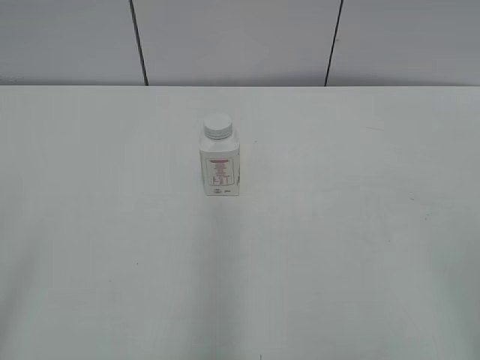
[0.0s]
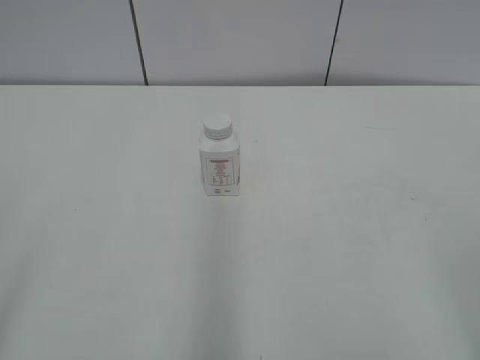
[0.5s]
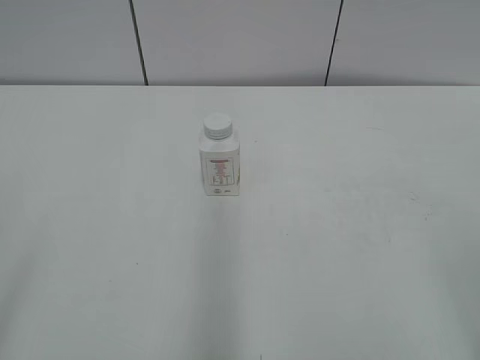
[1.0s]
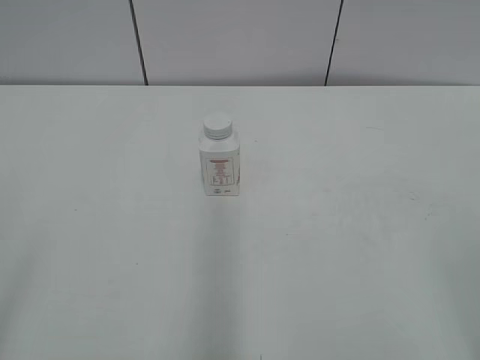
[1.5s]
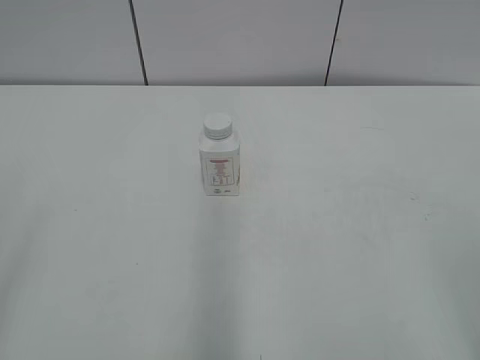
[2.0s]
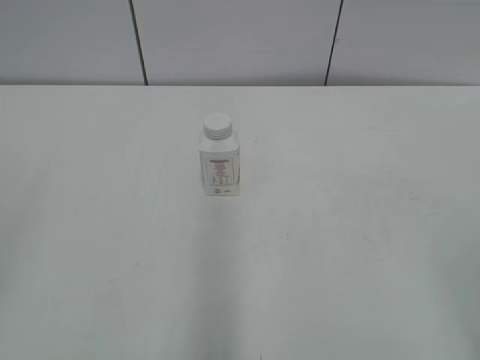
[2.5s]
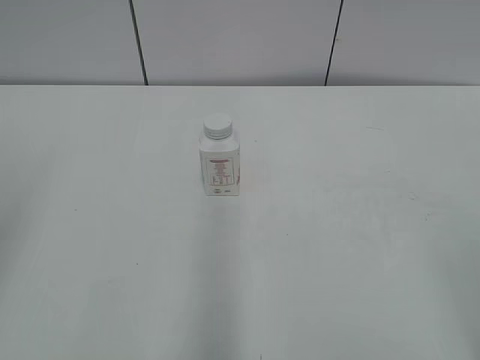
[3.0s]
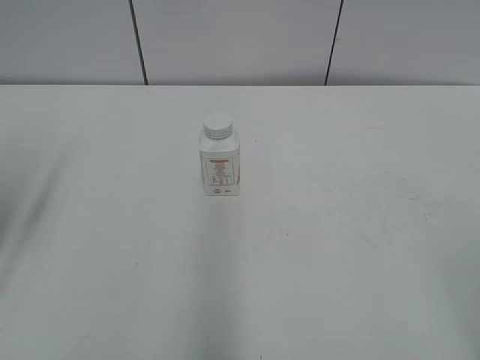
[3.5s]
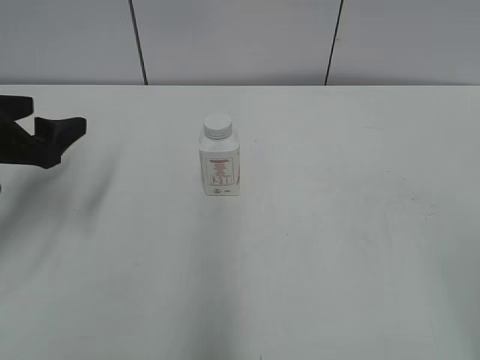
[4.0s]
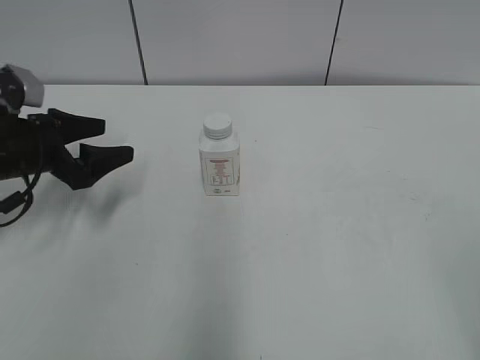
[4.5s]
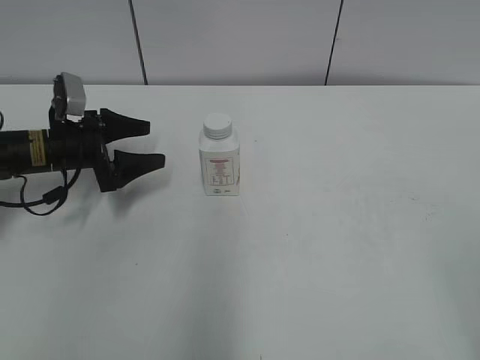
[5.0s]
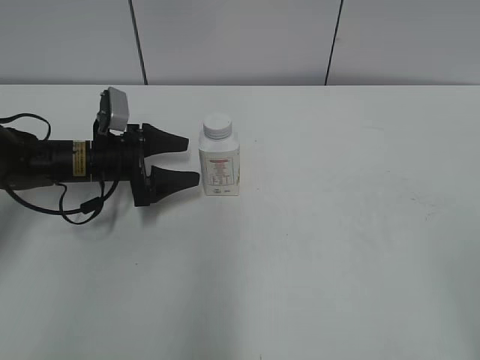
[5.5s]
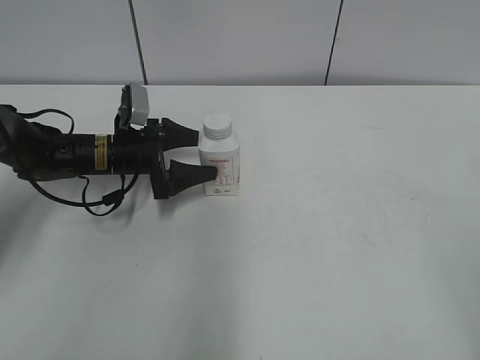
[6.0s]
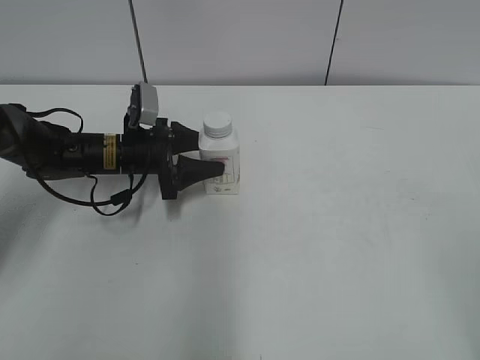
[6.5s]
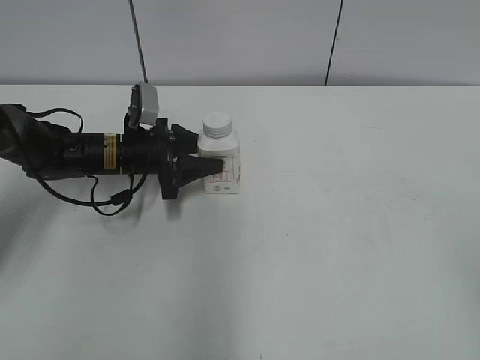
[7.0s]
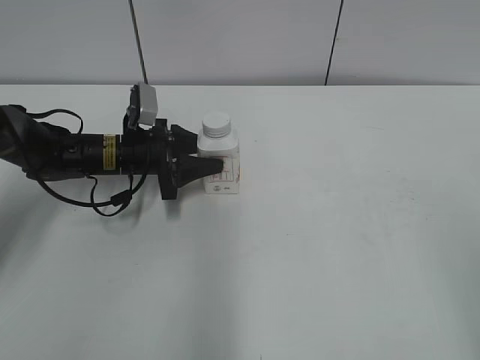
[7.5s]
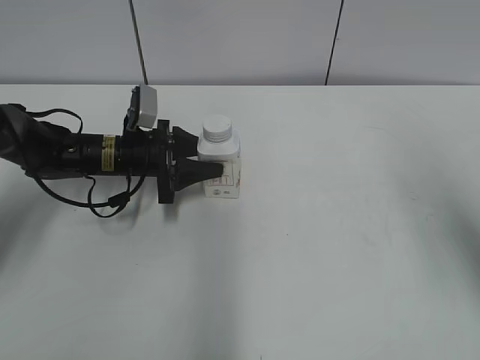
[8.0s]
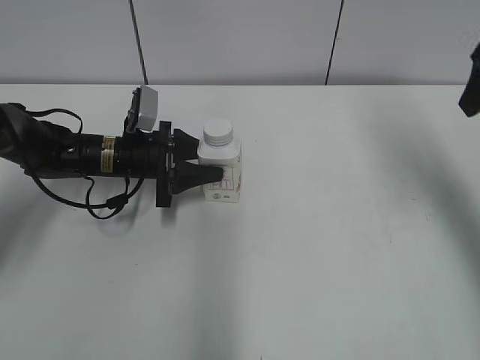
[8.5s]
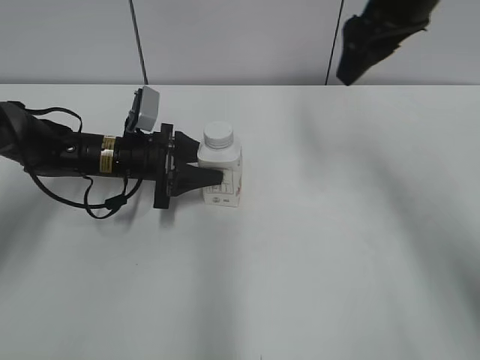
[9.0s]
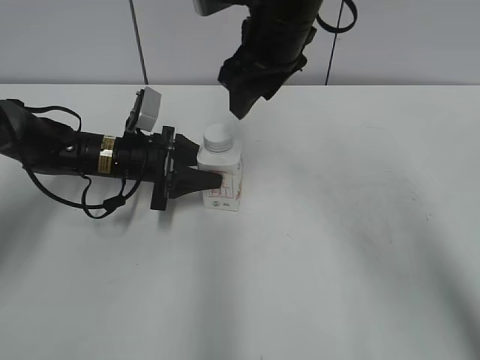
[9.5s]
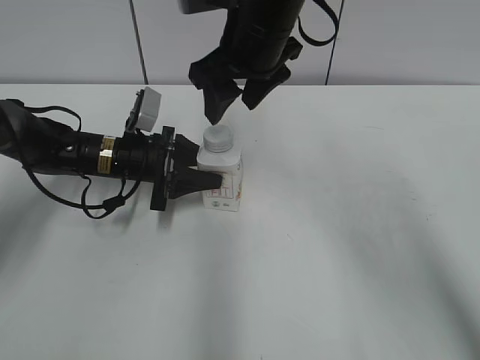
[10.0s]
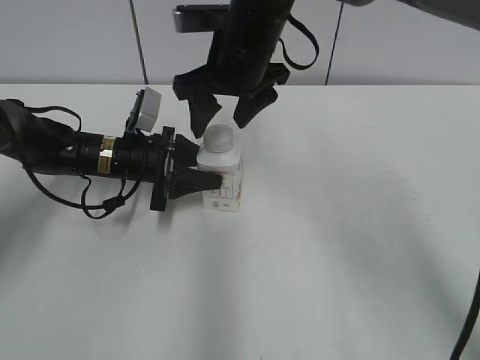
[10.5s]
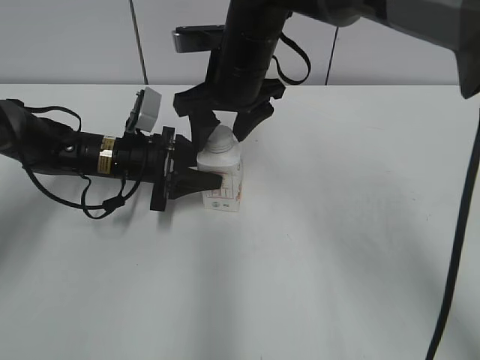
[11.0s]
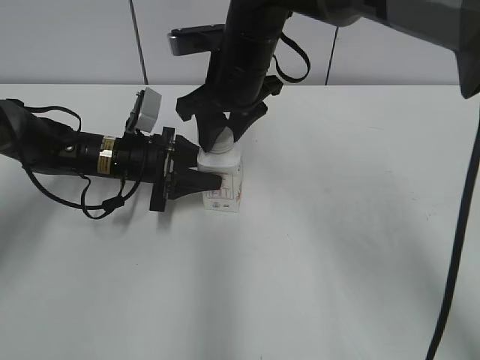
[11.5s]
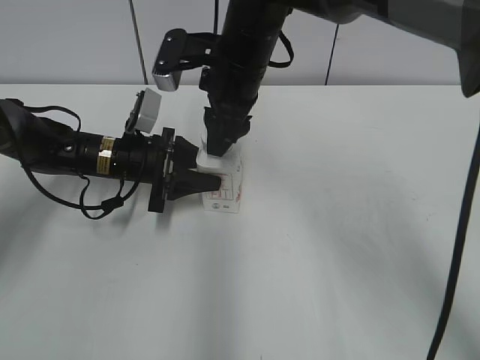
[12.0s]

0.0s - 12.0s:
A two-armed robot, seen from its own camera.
Step, 0.0s - 9.0s: Grasp the bottle and move it to the center of the table with the left gripper.
2.0s - 4.0s: The left gripper shifts about 30 cm forward and downward.
4.0s - 6.0s: The left gripper shifts roughly 20 cm forward, downward and to the right.
6.0s - 8.0s: The left gripper closes its fingers; the right gripper travels forward by approximately 20 cm.
8.0s - 10.0s: The right gripper is displaced to the left and forward by some 35 cm.
10.0s - 12.0s: The right gripper moves roughly 5 cm, and closes.

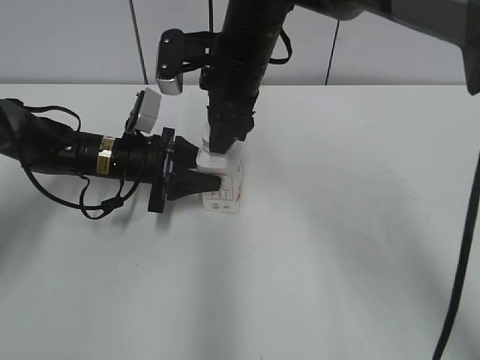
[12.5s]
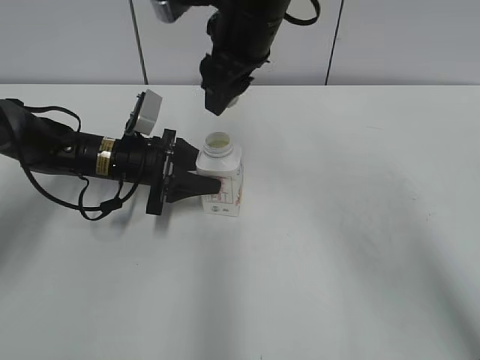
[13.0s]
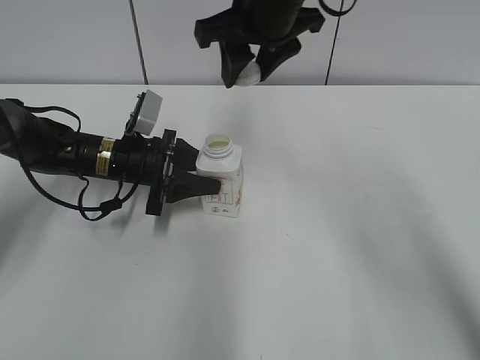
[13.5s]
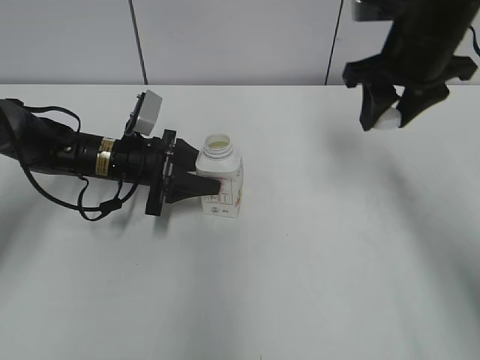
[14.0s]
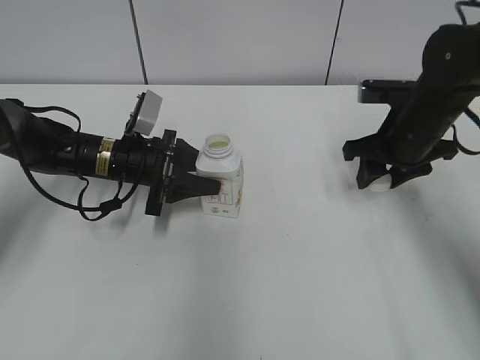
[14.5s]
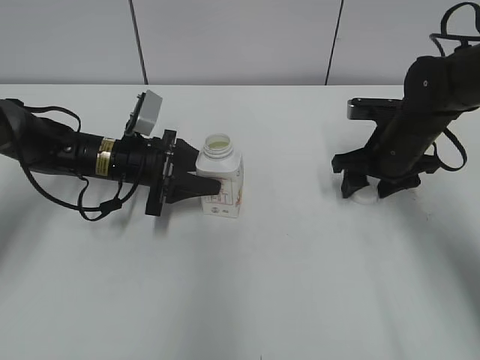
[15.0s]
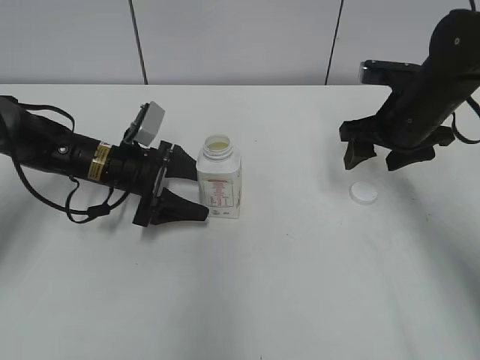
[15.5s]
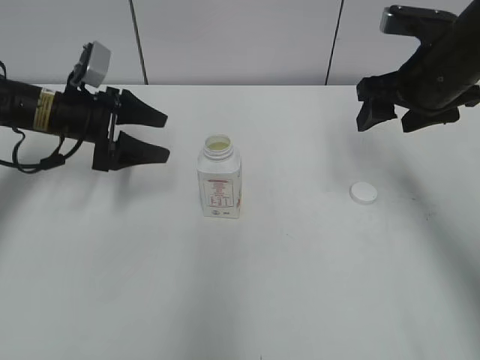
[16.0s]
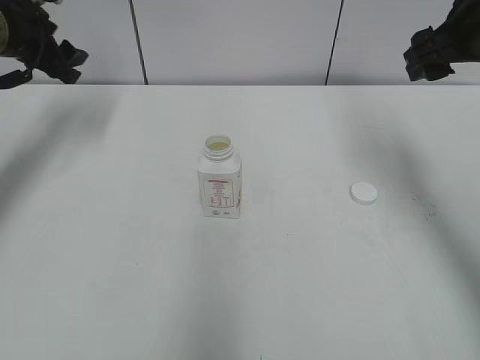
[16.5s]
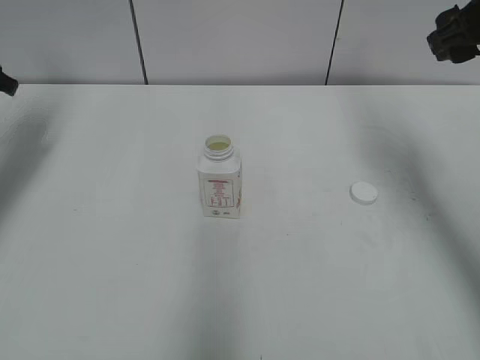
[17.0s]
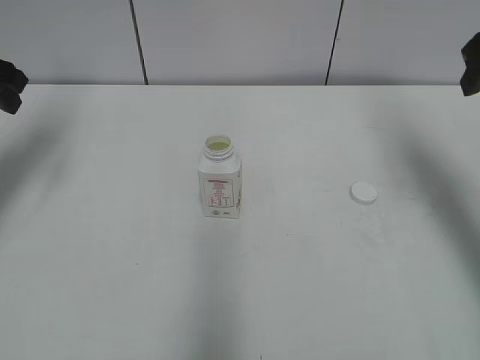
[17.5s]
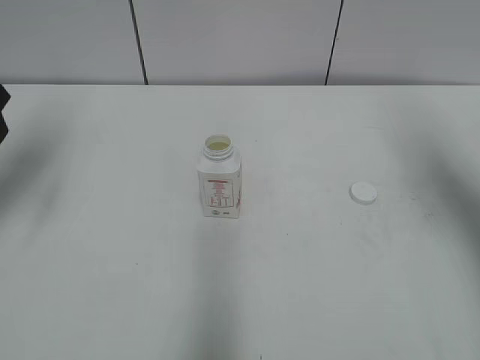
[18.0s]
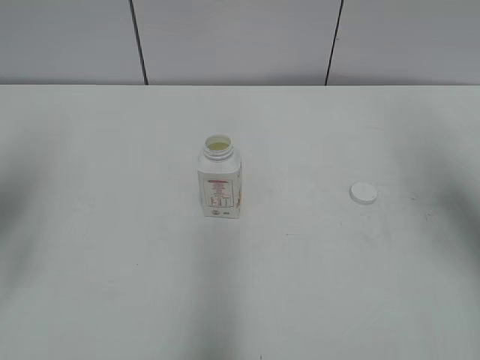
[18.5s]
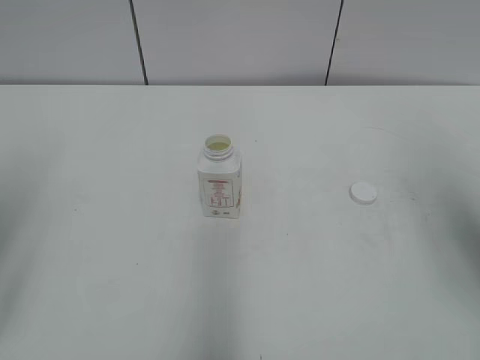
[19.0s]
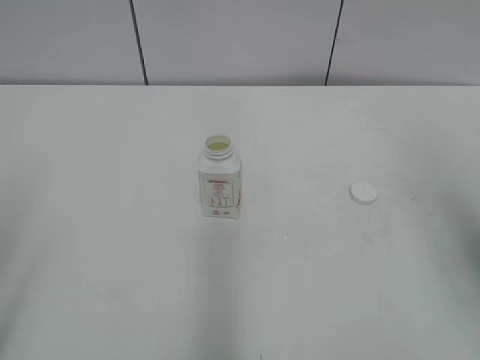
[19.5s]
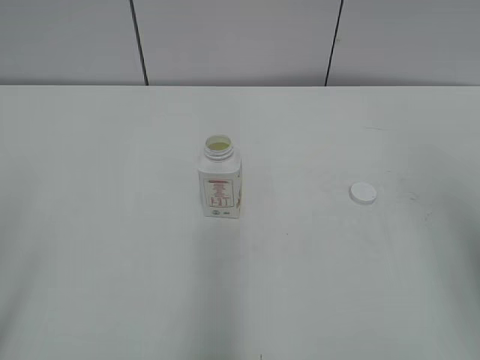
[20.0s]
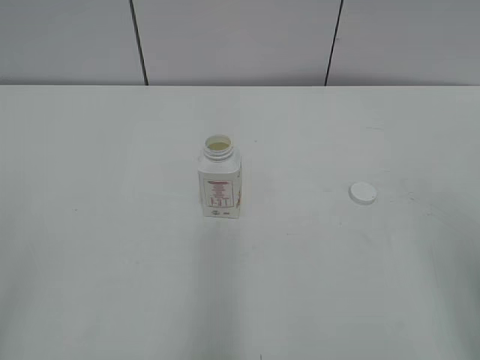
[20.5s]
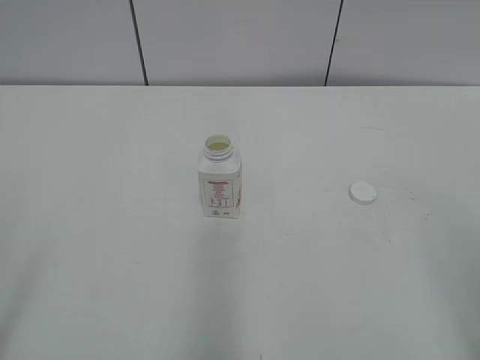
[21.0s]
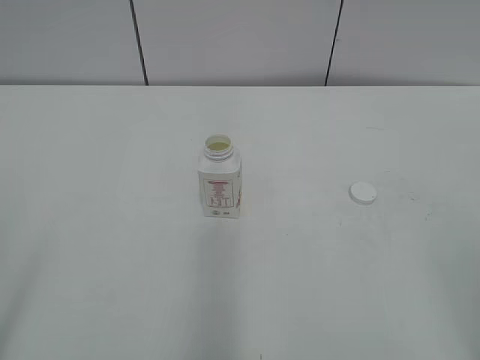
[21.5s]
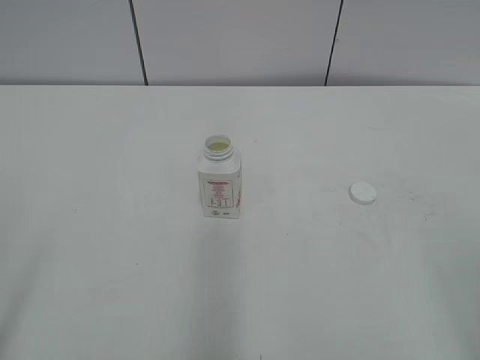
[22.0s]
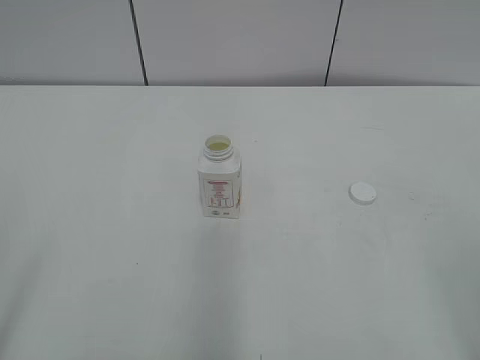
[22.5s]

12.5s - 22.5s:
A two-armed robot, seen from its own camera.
Step, 13.0s - 15.0s: Place the bottle cap on the table with the right gripper.
12.5s - 14.5s: The right gripper is displaced to the right by some 20 cm.
14.5s - 16.5s: The right gripper travels upward by roughly 15 cm, and opens its fingers; the left gripper moves upward and to the left, approximately 20 cm, and opens.
16.5s - 18.5s: The left gripper shifts about 20 cm backward. The right gripper is displaced backward and to the right by some 10 cm.
18.5s - 20.5s: Both grippers travel together backward, approximately 20 cm. The left gripper closes up.

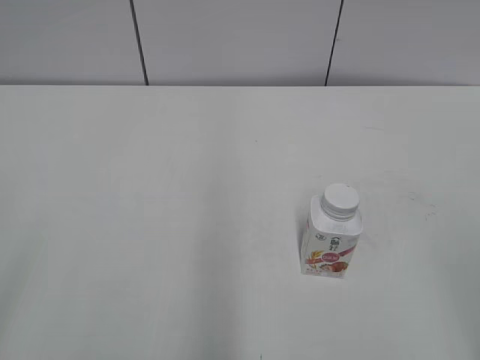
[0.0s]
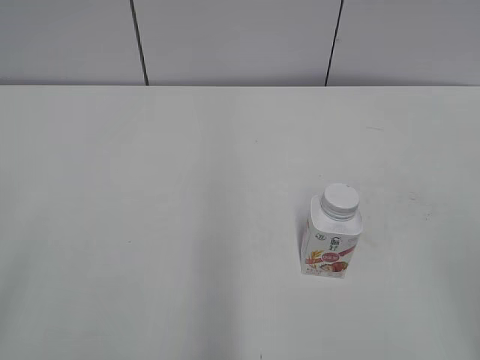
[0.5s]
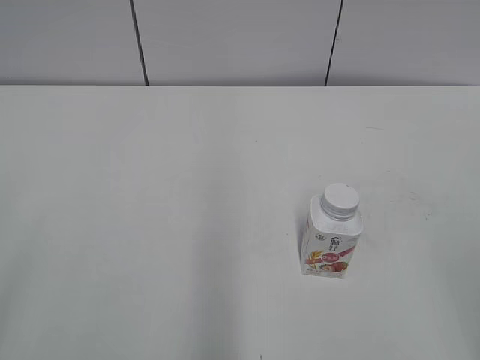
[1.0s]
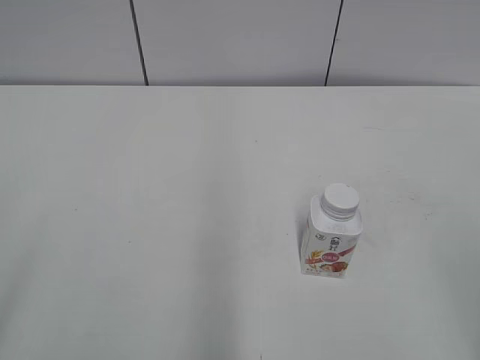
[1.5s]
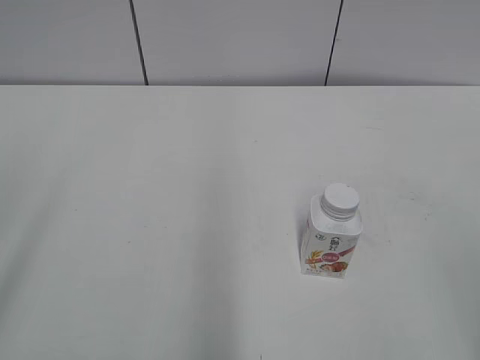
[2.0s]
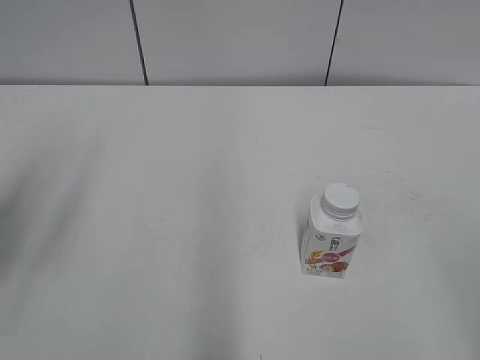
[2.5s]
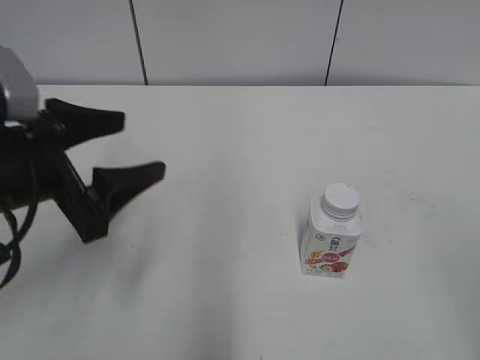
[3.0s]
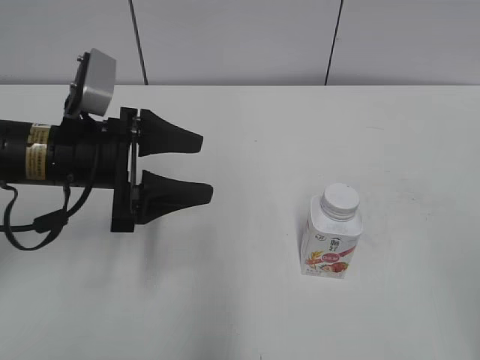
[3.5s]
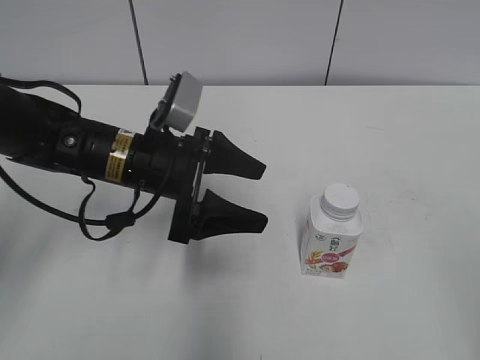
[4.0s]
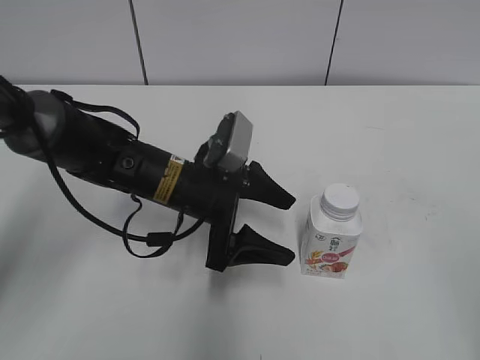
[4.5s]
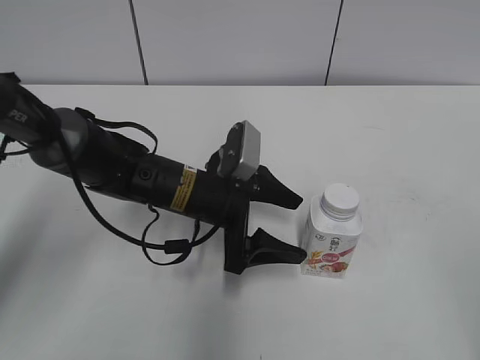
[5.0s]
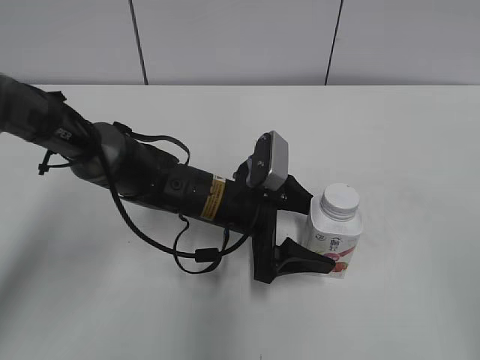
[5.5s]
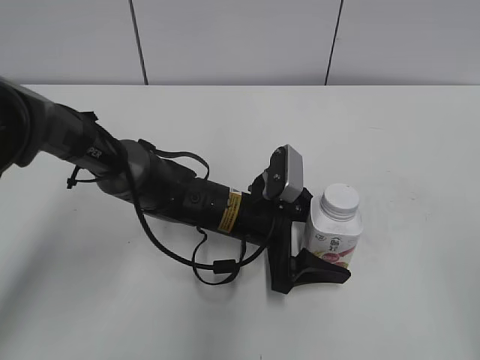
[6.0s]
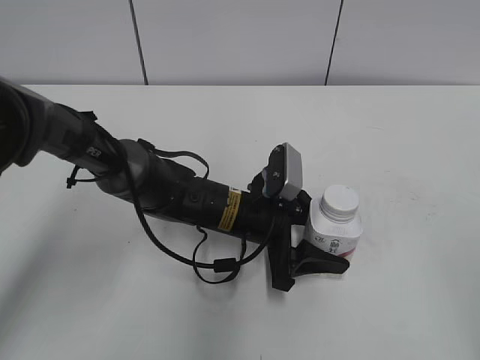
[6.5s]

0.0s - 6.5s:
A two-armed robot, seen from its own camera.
2.0s - 4.5s: The left gripper shifts about 40 cm forward, downward and to the right.
4.5s - 6.5s: The left gripper moves to the right and downward, approximately 10 cm, and closes its fingers.
